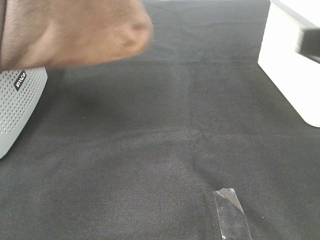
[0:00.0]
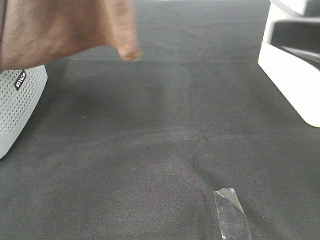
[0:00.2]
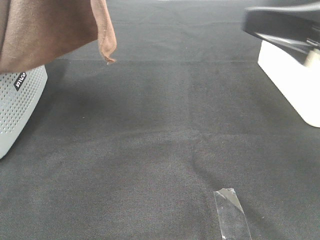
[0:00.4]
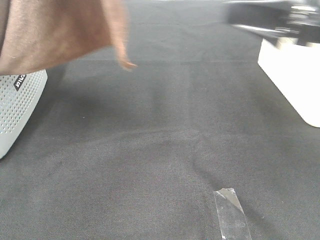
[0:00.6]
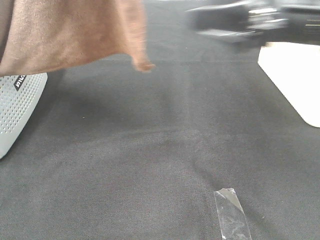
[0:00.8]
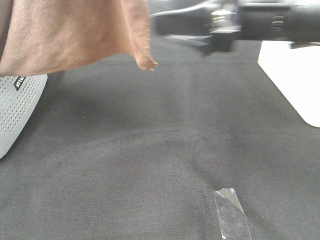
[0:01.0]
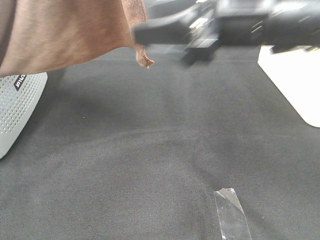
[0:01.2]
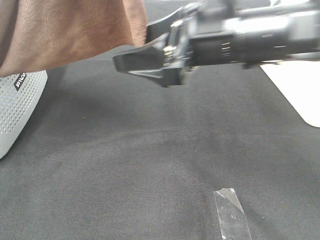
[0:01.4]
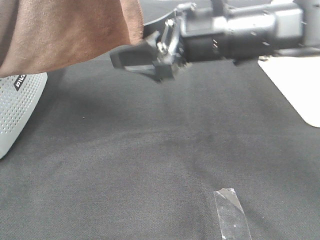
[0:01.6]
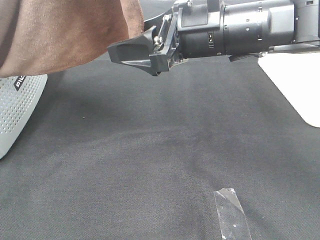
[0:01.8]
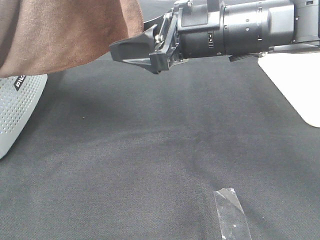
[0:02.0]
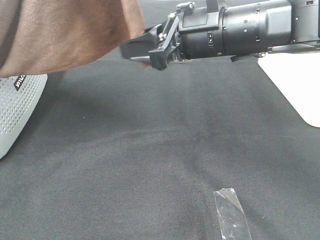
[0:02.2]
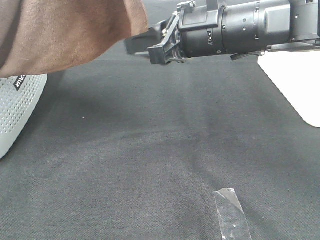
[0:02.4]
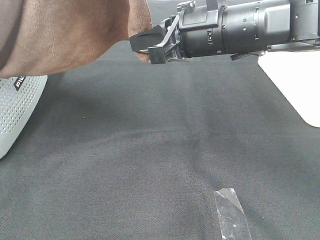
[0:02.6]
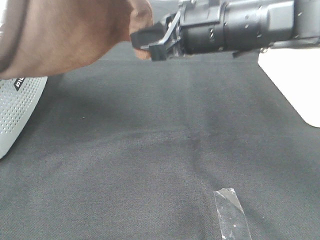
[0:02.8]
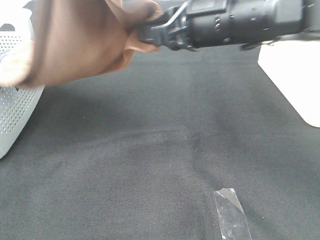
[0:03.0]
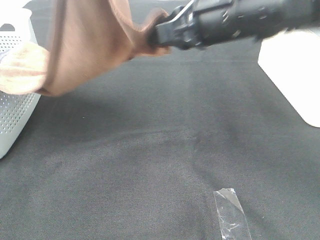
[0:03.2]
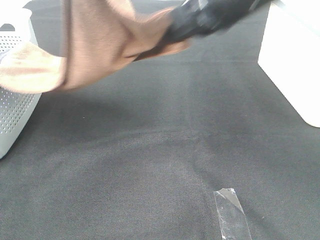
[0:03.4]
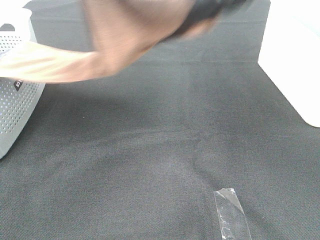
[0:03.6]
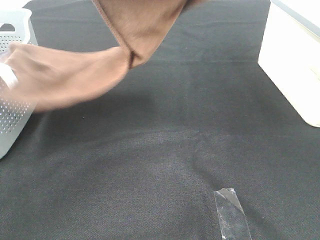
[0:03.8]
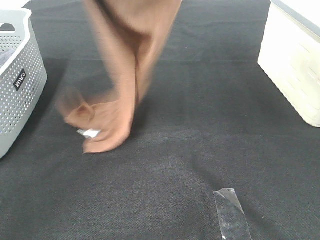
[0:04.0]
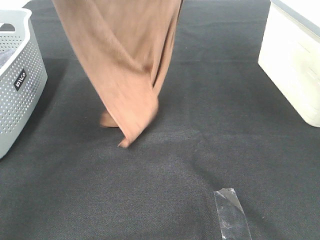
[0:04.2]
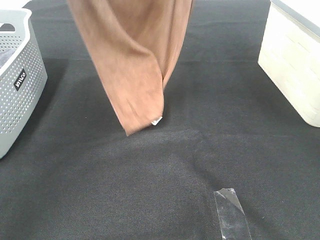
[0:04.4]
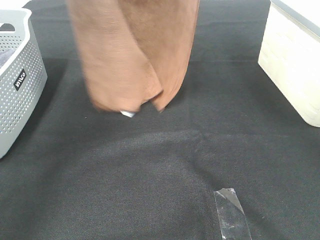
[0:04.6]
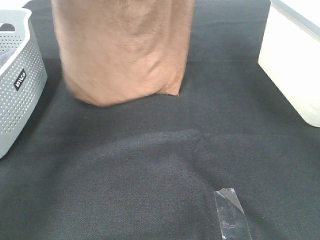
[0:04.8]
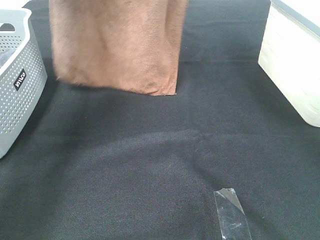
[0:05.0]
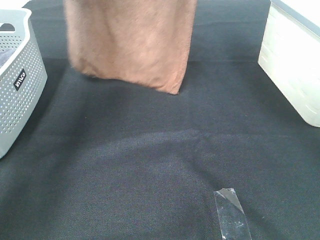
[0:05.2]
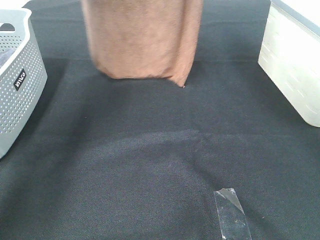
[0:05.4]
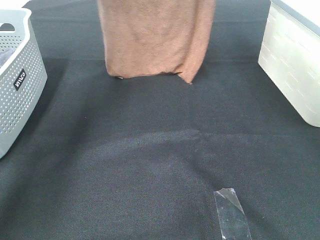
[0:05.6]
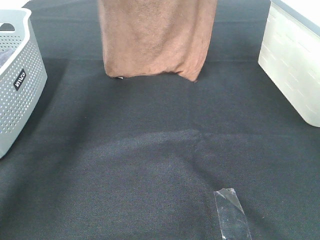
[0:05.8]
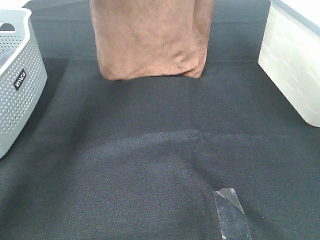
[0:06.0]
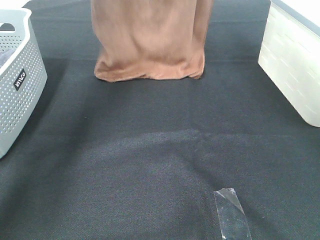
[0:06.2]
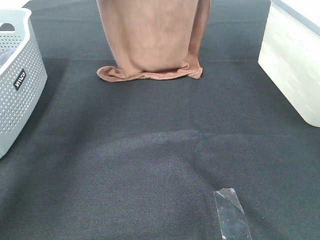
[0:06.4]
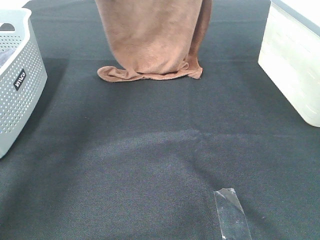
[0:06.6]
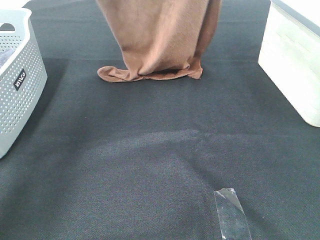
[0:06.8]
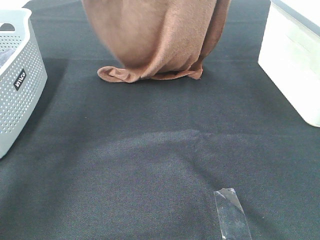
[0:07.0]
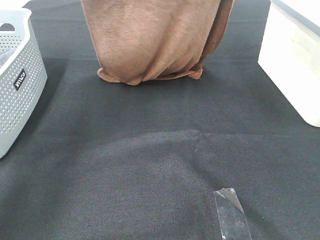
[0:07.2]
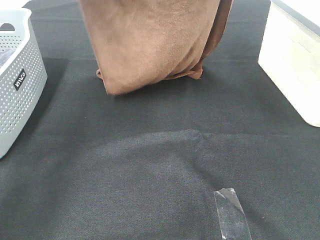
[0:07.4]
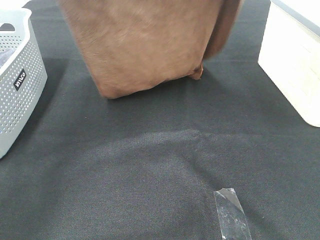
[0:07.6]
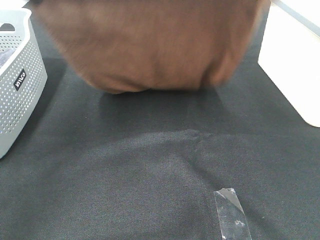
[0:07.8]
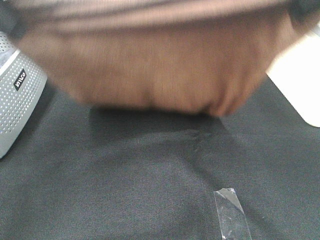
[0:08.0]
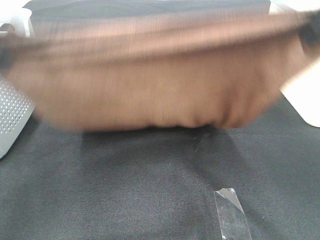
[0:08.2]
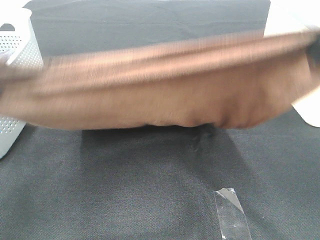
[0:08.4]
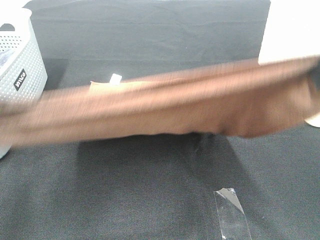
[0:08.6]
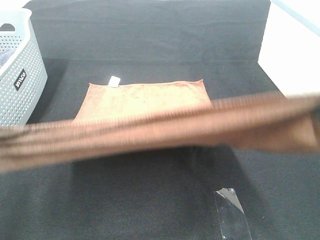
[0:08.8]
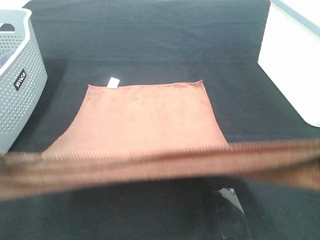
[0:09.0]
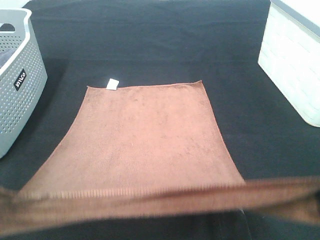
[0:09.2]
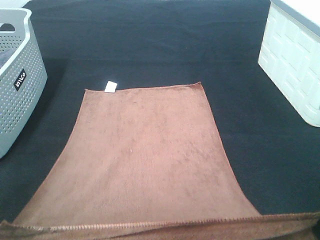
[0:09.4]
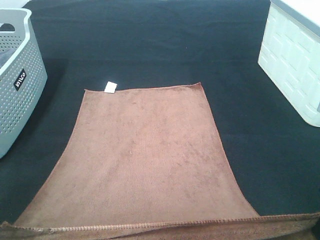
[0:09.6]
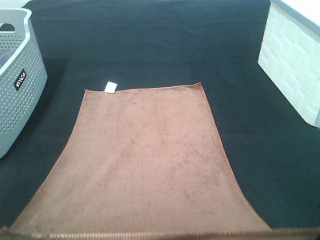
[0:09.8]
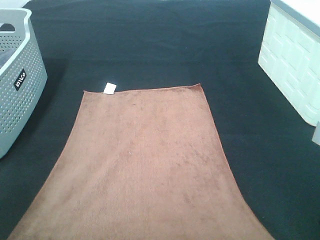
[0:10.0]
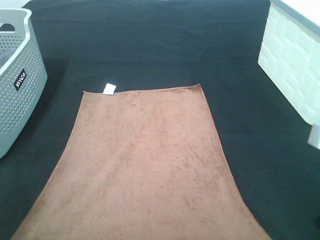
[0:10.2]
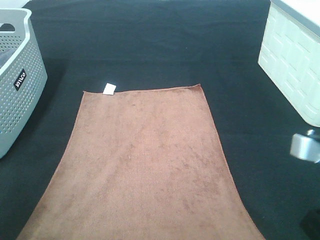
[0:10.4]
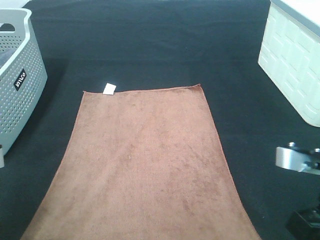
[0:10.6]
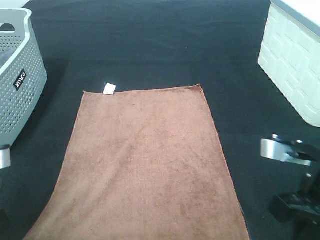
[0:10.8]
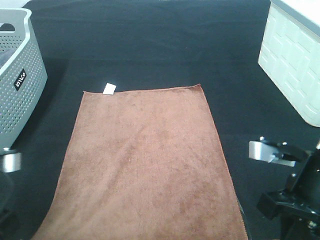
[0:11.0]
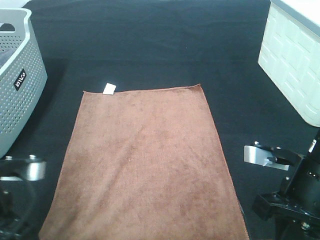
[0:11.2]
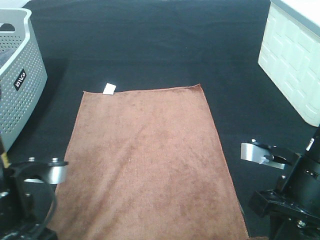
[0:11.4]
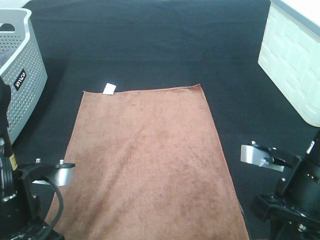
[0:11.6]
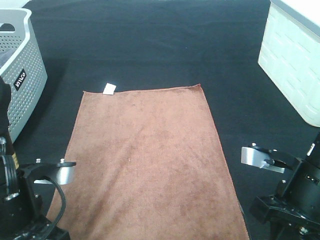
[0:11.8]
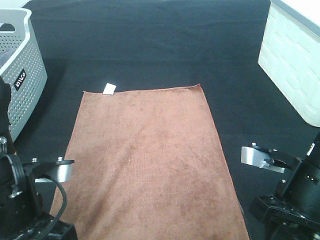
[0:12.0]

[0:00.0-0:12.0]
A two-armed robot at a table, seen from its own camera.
Task of the whole recording: Remove the towel and place it.
Step, 0:00.0 to 0:02.2: Right hand: grab a corner of the brown towel and straighten it.
Step, 0:02.4 to 0:07.8: Left hand: spread the brown towel flat on the table.
Step, 0:02.4 to 0:07.8: Right hand: spread the brown towel flat on the table.
0:00.0 to 0:01.6: The right gripper is displaced forward, to the left and downward by approximately 25 cm.
0:01.6 to 0:03.0: The right gripper closes up.
0:03.0 to 0:04.4: The left gripper travels forward and to the left by roughly 10 cm. The right gripper goes some 25 cm upward.
0:04.4 to 0:06.0: The left gripper shifts some 15 cm forward. The right gripper shifts about 10 cm forward.
0:06.0 to 0:07.6: Both grippers travel together backward, about 15 cm.
0:07.6 to 0:09.0: Both grippers move backward and downward, roughly 25 cm.
0:09.0 to 0:10.4: The grippers both shift downward by approximately 10 cm.
0:10.4 to 0:12.0: The left gripper travels to the right by some 5 cm. The right gripper shifts roughly 5 cm downward.

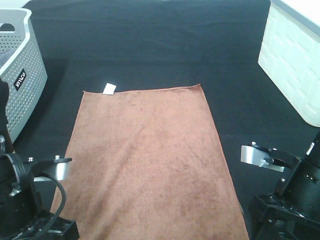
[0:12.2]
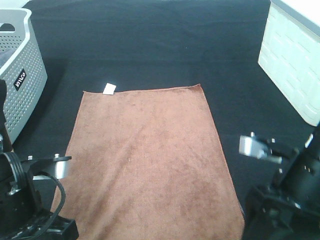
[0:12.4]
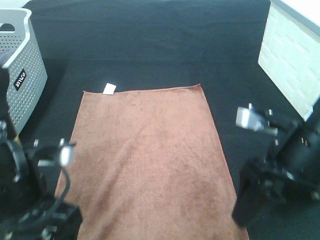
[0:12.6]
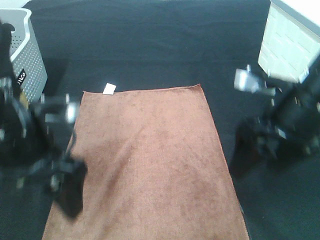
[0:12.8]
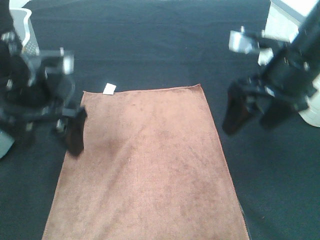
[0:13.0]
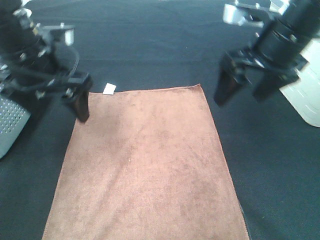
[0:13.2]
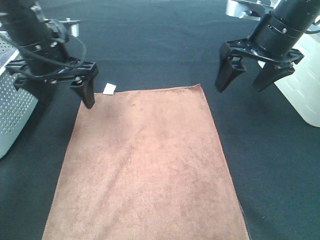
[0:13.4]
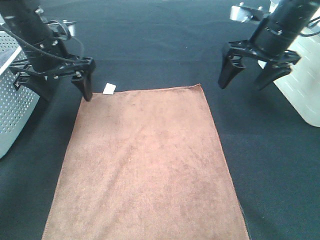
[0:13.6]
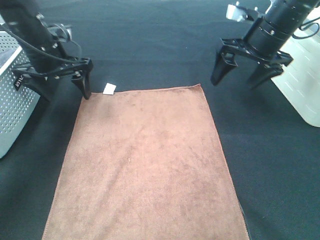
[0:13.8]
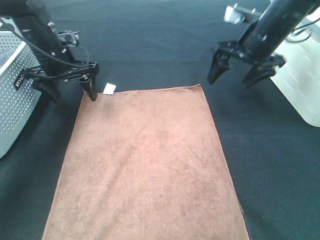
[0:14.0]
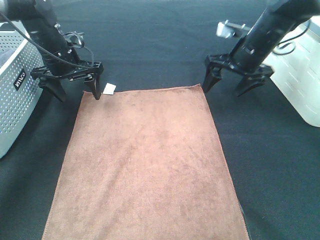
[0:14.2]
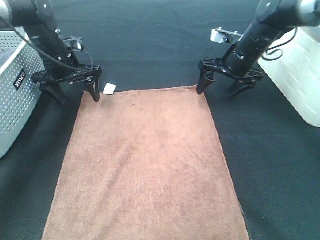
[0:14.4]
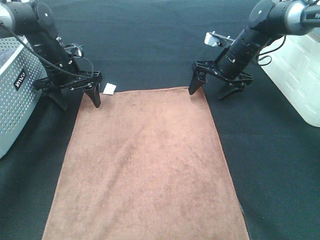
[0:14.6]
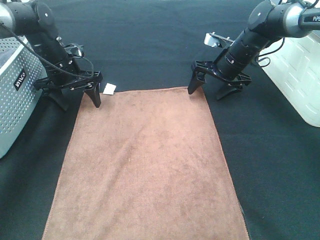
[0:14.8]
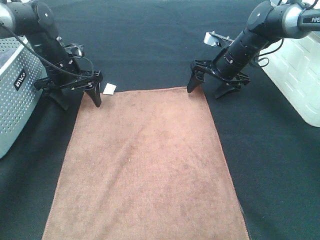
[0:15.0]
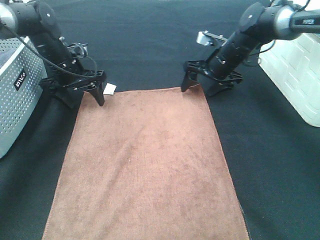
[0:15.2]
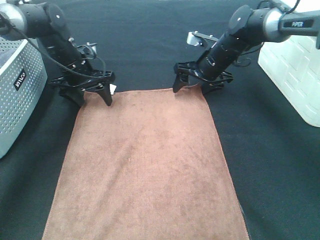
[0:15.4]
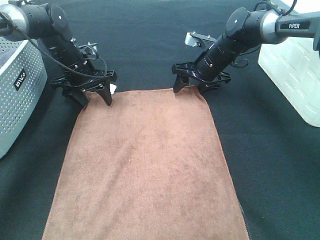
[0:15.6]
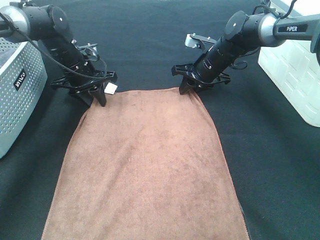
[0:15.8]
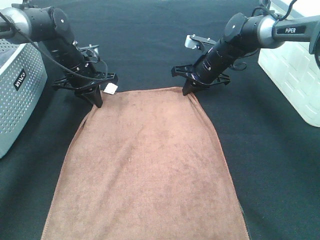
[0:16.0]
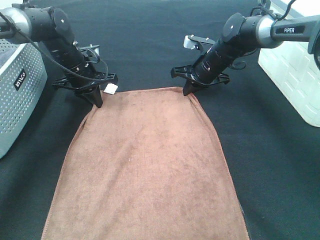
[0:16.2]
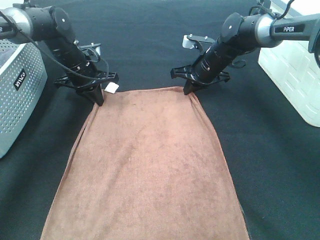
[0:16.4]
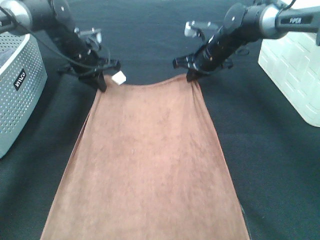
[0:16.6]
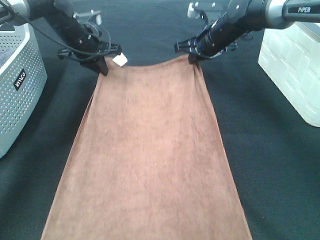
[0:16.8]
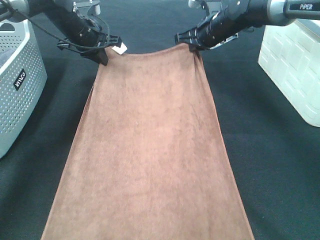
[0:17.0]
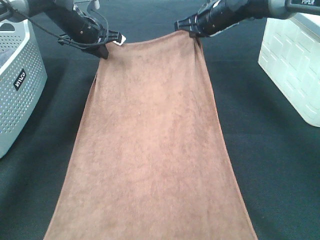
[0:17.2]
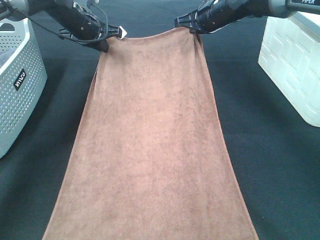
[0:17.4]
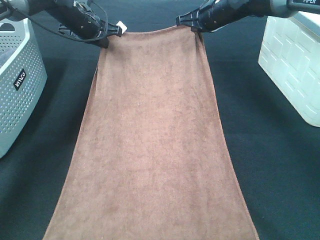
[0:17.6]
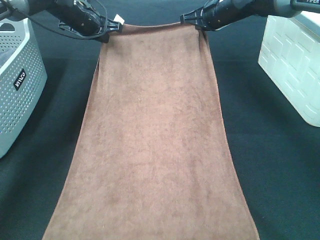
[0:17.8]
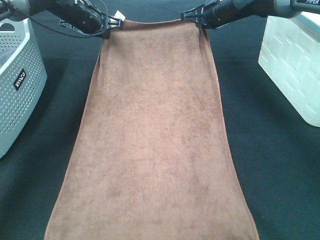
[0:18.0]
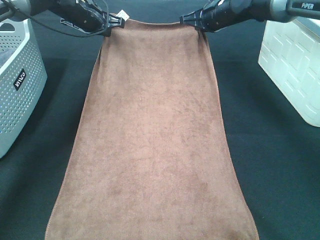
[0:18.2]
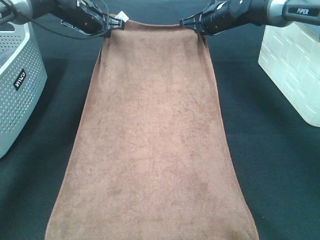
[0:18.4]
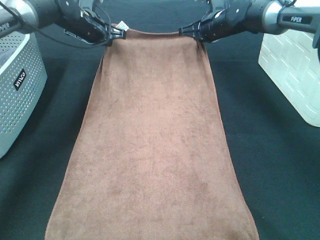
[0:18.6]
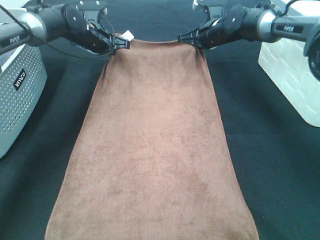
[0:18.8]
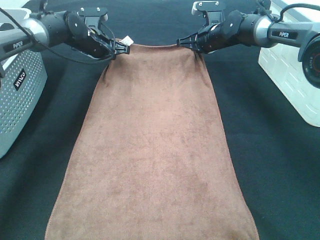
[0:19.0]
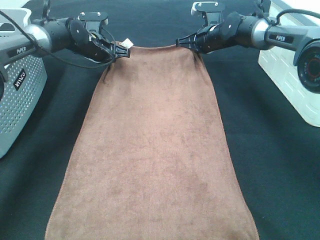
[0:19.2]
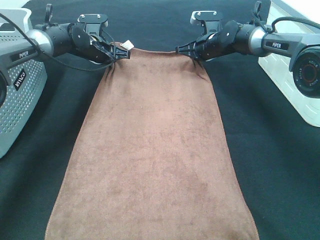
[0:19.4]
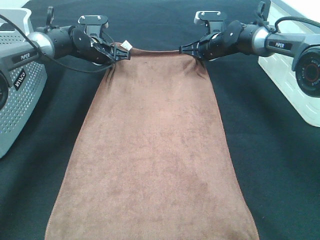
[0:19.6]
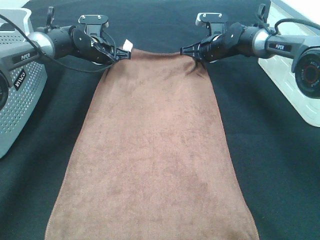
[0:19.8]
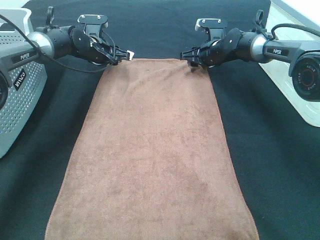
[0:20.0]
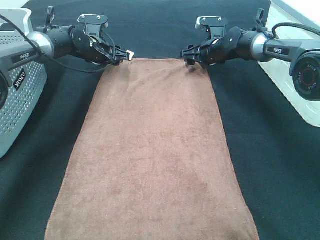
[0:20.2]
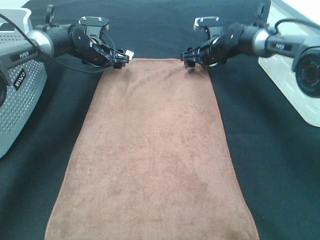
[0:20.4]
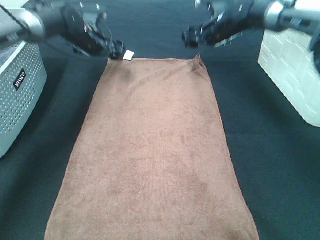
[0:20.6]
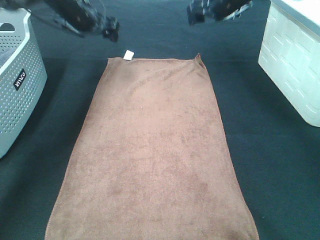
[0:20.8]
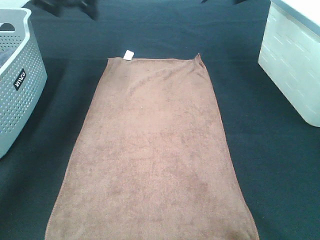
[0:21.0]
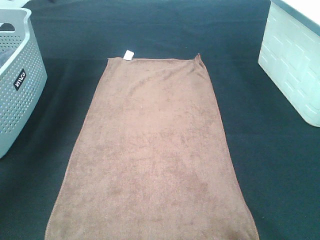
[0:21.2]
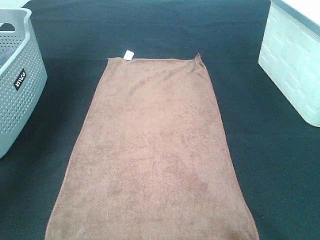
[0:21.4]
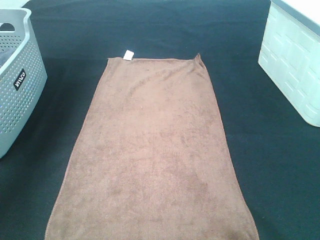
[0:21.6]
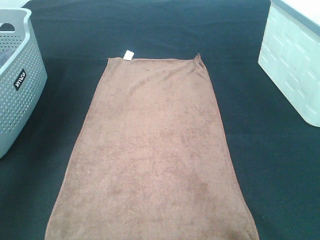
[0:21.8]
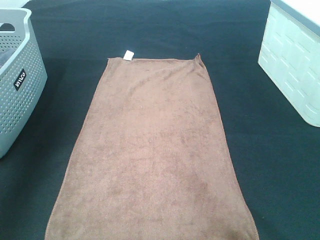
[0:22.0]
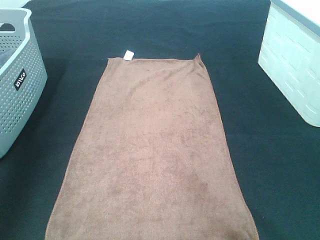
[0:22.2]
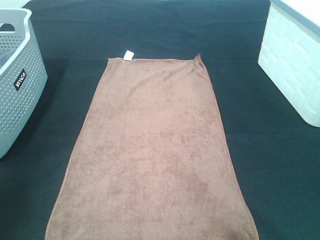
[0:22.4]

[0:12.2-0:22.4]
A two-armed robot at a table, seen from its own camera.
Task of the whole recording: Remove the towel and place it.
Step, 0:12.2 to 0:14.4: Left hand:adjust the brown towel.
Step, 0:12.2 to 0:14.4: Right hand:adjust the brown towel.
0:12.2 to 0:13.6: The two grippers go some 25 cm forward.
0:13.6 to 0:15.2: Both grippers move downward and forward, about 15 cm.
0:15.2 to 0:16.6: The right gripper closes up, while the left gripper closes.
0:16.6 to 0:18.0: The two grippers go about 5 cm upward.
0:18.0 to 0:19.4: The grippers both shift downward by roughly 10 cm.
0:19.4 to 0:21.0: Both grippers move upward, some 20 cm. The left gripper opens its fingers. The right gripper opens its fingers.
0:21.0 to 0:22.4: Both grippers travel together backward, approximately 40 cm.
